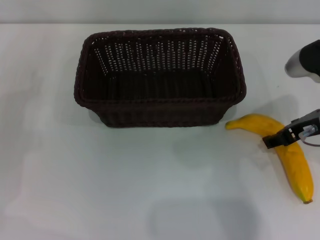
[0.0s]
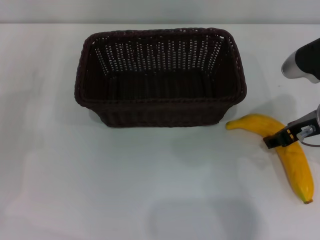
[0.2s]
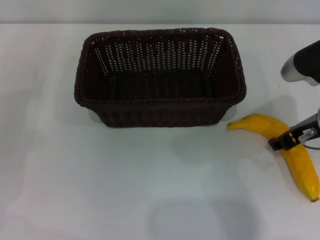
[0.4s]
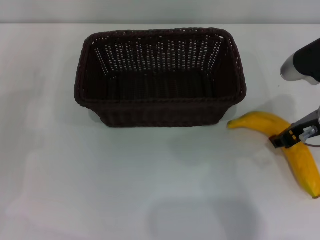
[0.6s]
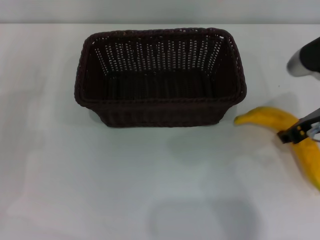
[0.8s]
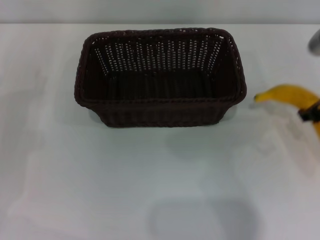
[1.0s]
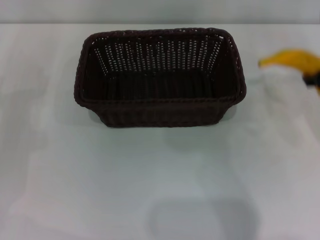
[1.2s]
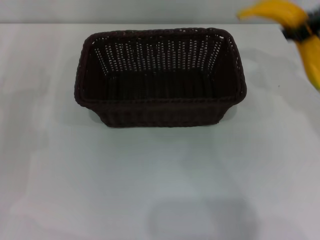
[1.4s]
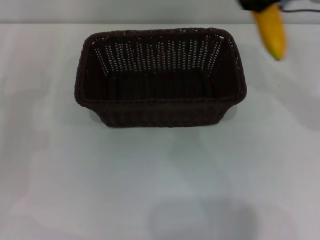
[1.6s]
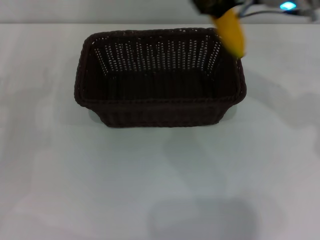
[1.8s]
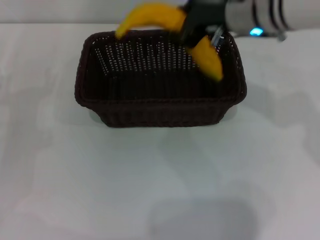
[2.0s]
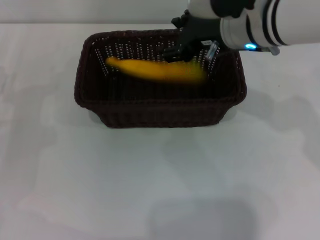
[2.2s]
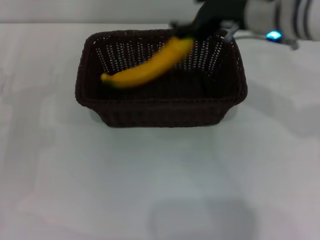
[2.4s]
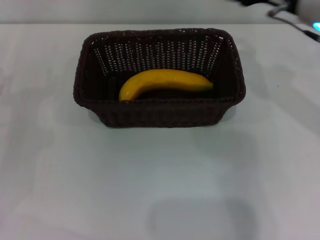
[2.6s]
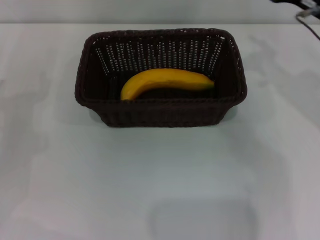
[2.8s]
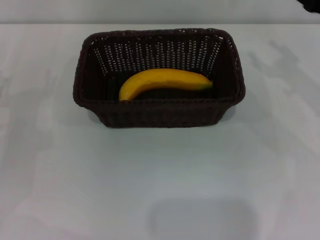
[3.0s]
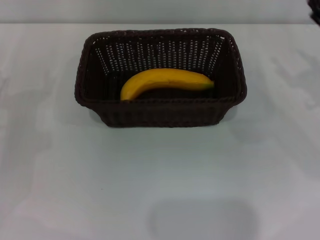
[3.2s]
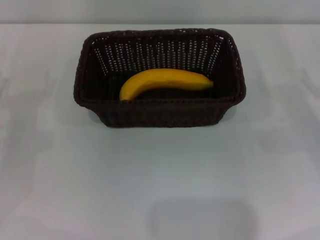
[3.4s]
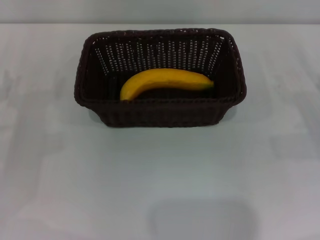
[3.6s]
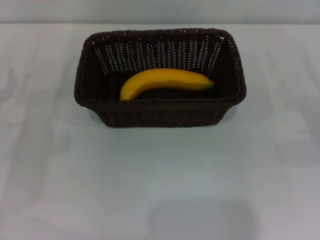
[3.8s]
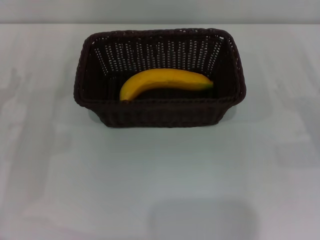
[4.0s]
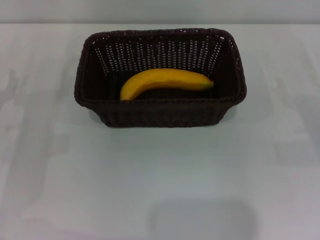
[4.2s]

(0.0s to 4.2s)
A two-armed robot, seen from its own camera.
Step, 1.2s - 2.4s: Place the banana into the dark basket with the right gripper.
0.0s - 1.4s: The right gripper heads upward and forward, covering roughly 10 cm, and closes its fingers.
1.4s - 2.8s: The right gripper travels downward by some 5 cm, reaches roughly 10 cm to the left, then returns, and opens up.
2.8s - 4.2s: The right gripper moves downward, to the right and backward, some 20 cm.
